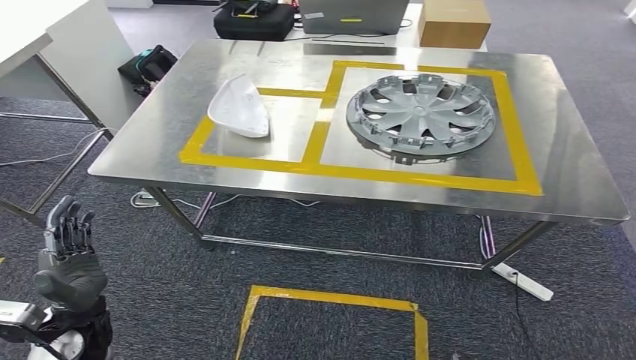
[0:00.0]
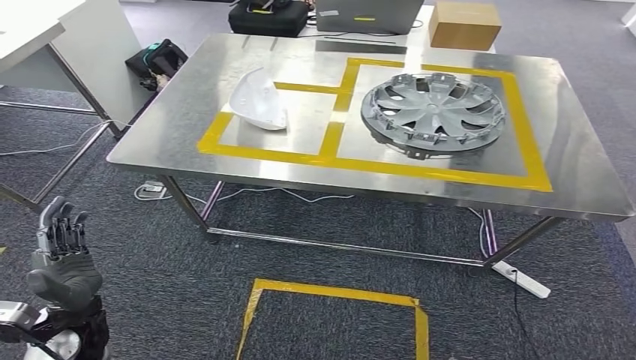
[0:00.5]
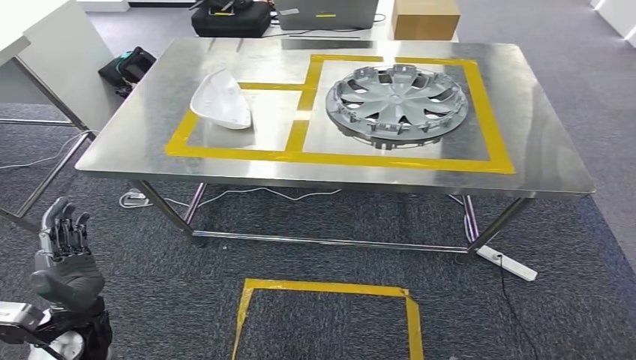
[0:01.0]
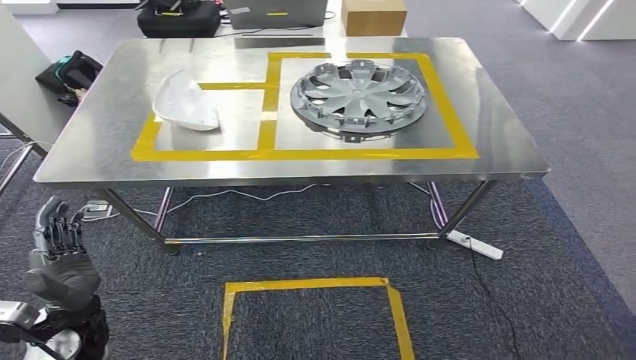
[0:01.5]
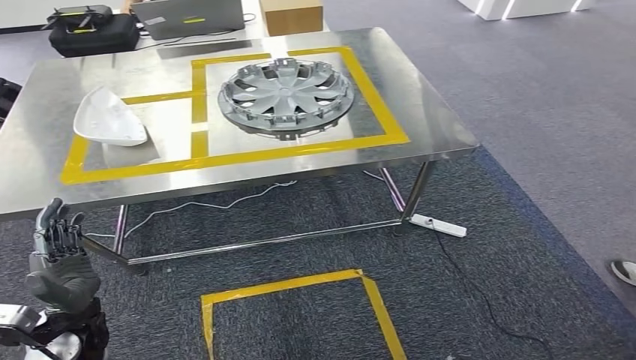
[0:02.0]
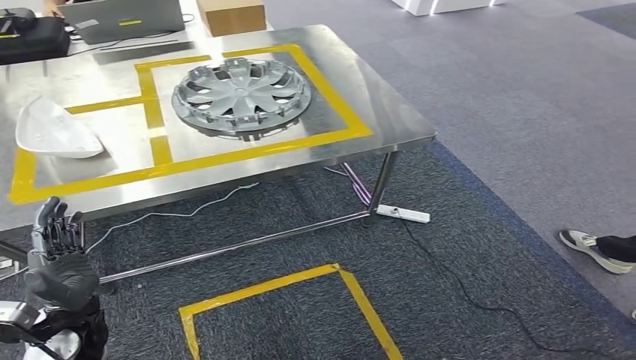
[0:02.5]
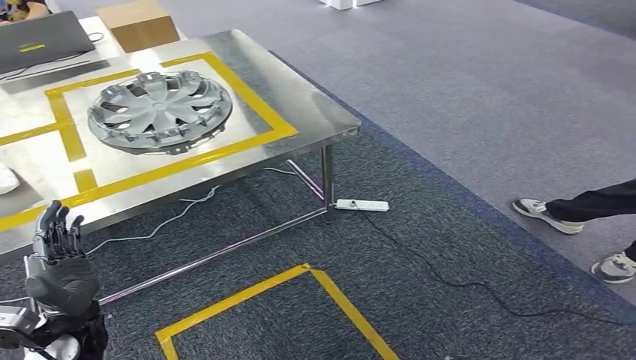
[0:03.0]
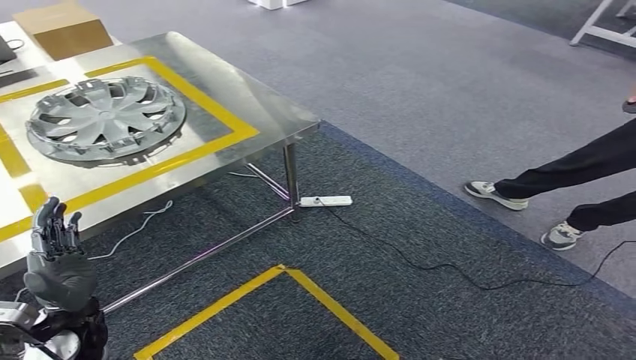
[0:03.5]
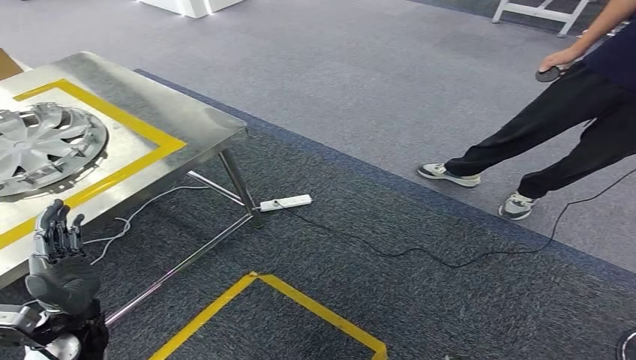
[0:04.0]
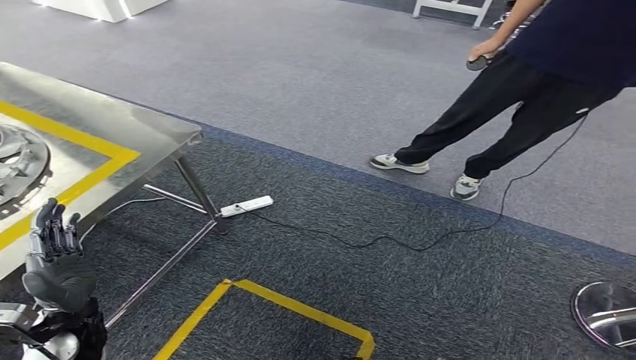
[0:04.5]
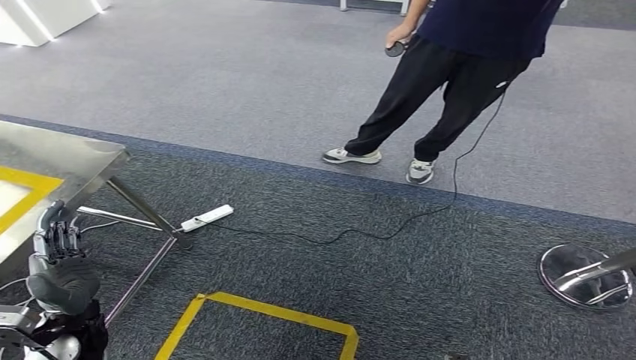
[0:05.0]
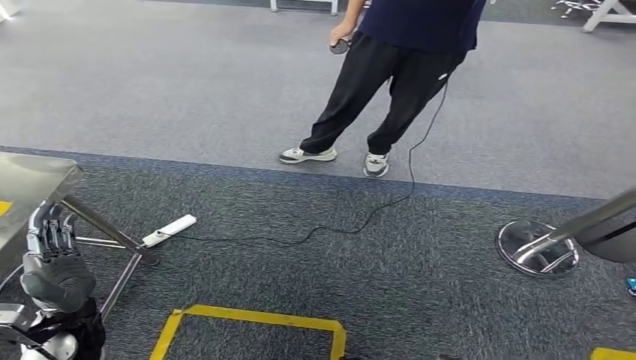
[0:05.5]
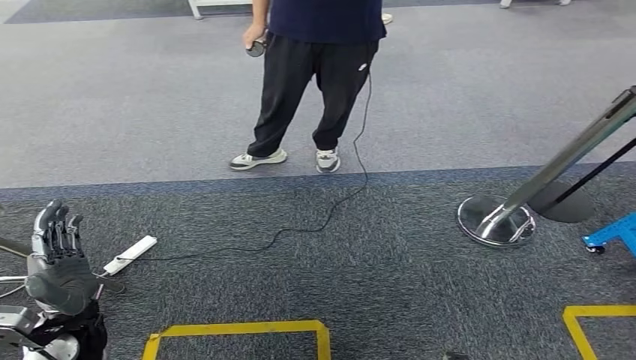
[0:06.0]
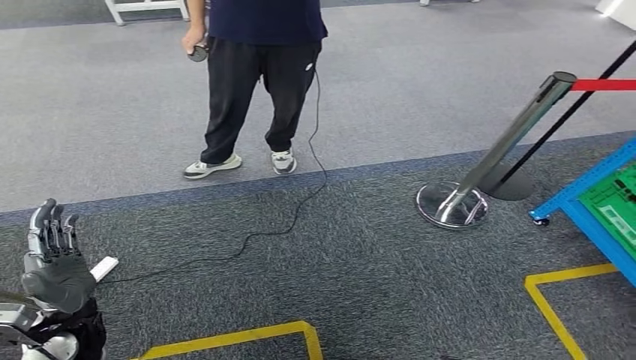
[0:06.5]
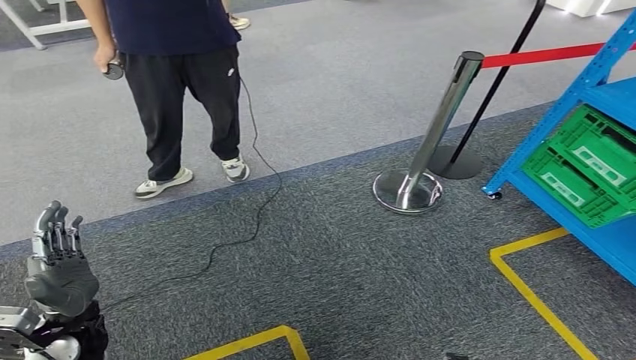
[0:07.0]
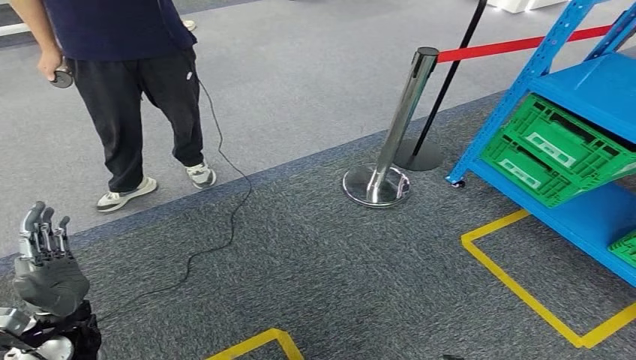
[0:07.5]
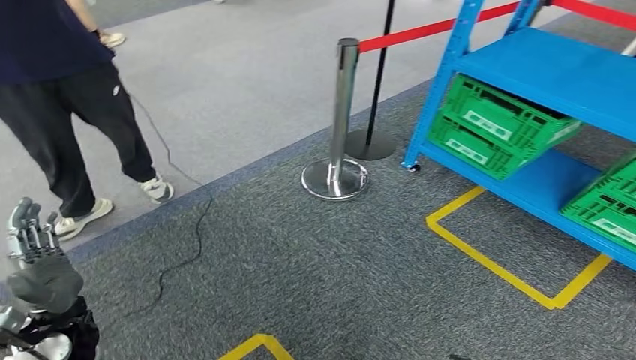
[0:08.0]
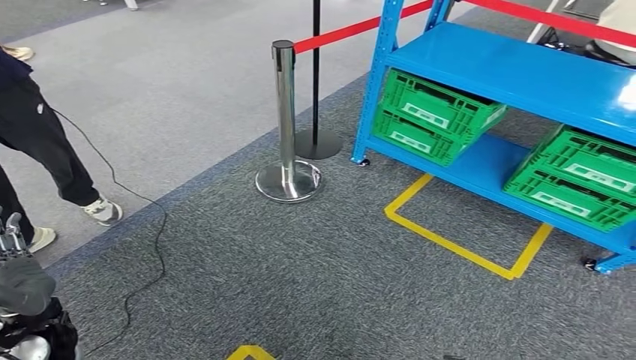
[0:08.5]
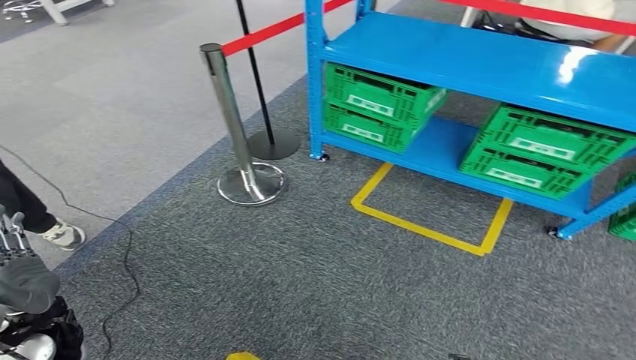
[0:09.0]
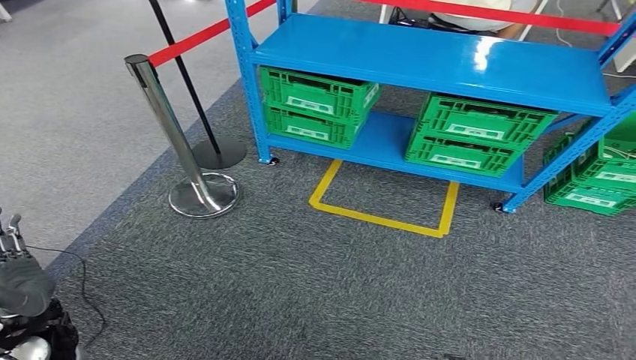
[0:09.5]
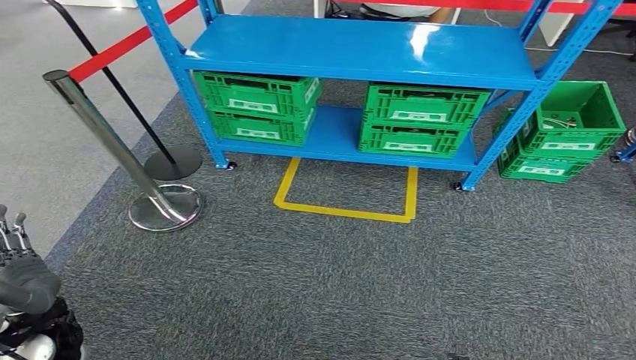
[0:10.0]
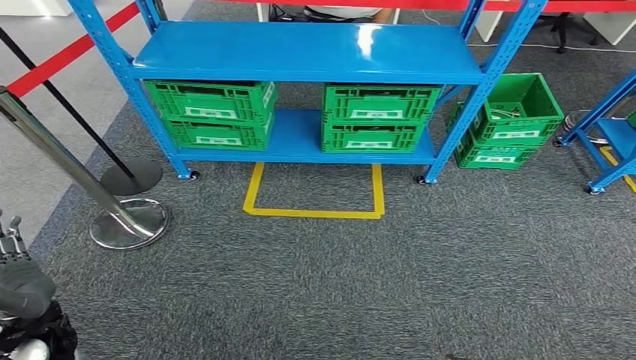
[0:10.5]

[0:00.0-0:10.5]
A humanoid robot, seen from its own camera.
Step, 0:00.0 to 0:10.5: Move to the initial position at the workbench.
